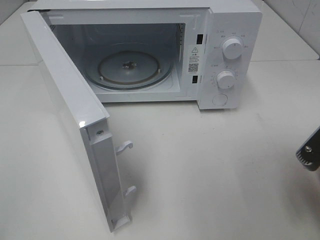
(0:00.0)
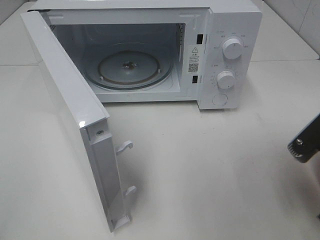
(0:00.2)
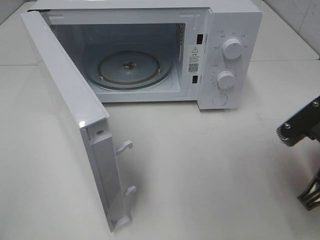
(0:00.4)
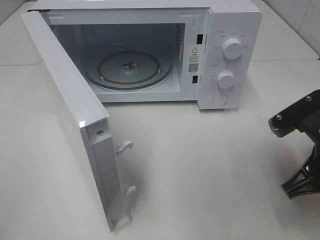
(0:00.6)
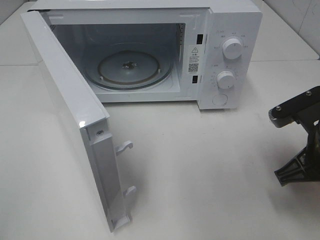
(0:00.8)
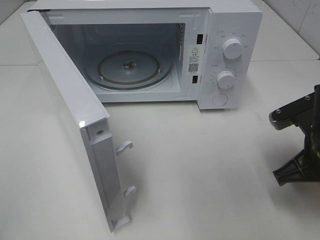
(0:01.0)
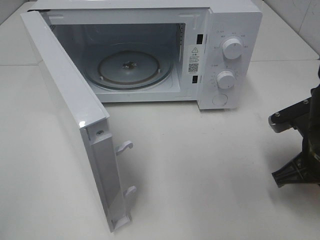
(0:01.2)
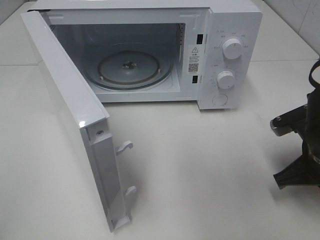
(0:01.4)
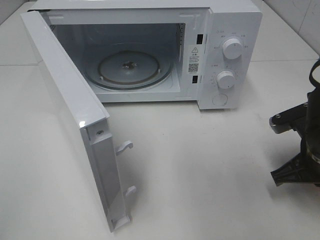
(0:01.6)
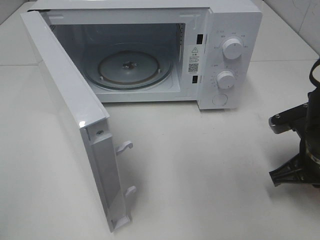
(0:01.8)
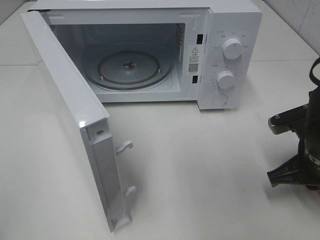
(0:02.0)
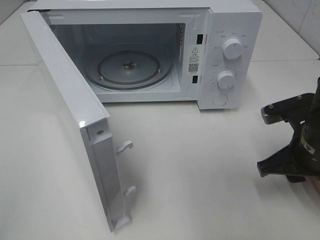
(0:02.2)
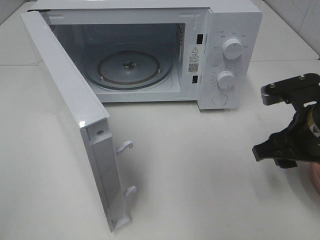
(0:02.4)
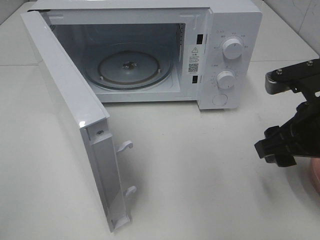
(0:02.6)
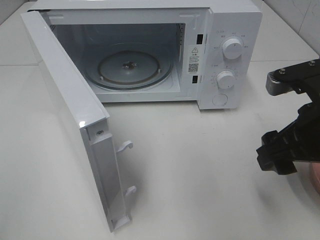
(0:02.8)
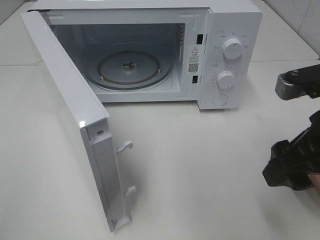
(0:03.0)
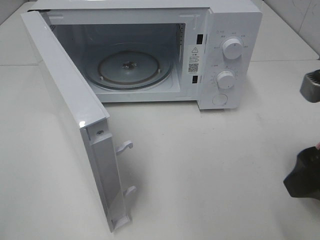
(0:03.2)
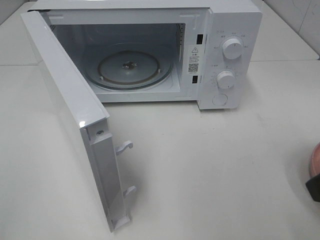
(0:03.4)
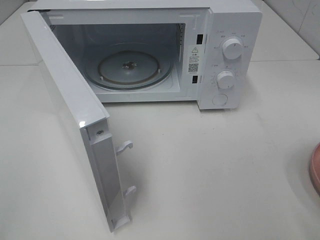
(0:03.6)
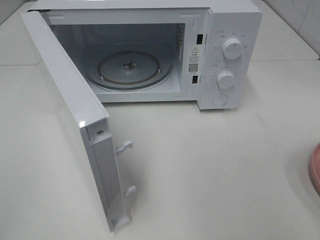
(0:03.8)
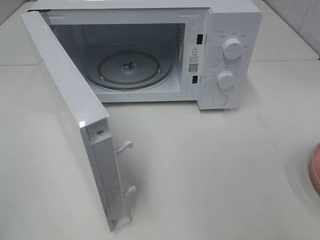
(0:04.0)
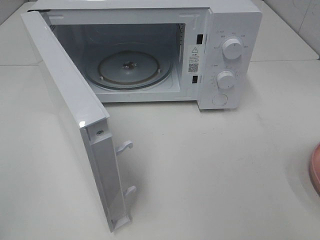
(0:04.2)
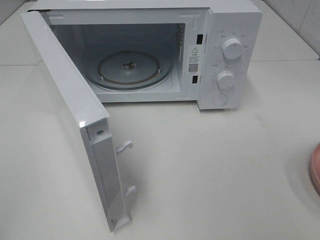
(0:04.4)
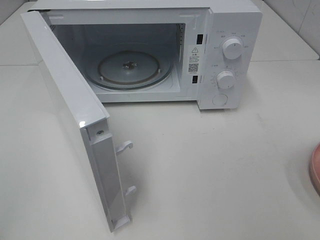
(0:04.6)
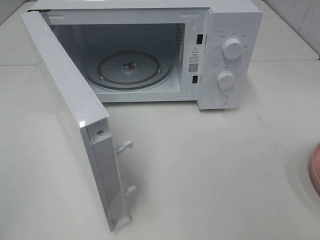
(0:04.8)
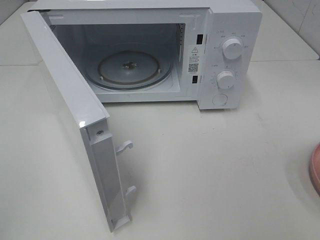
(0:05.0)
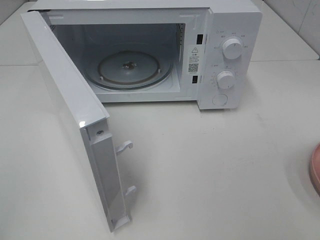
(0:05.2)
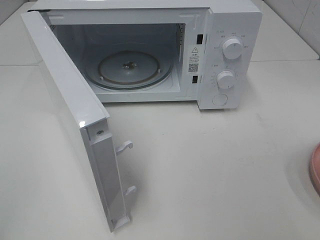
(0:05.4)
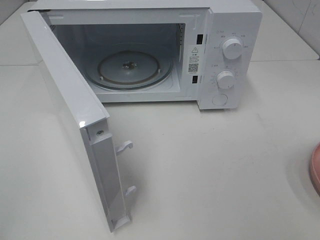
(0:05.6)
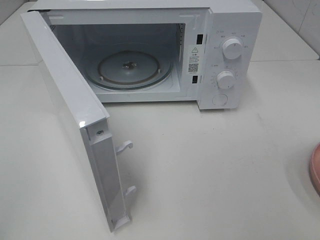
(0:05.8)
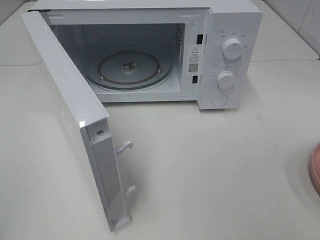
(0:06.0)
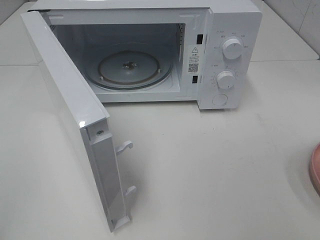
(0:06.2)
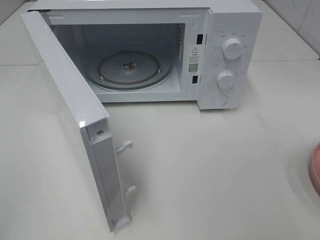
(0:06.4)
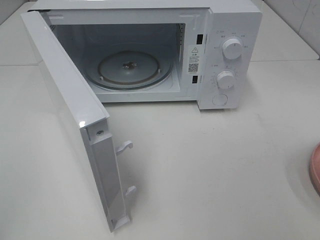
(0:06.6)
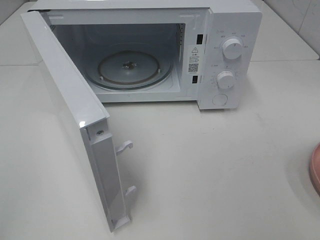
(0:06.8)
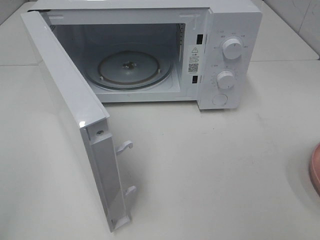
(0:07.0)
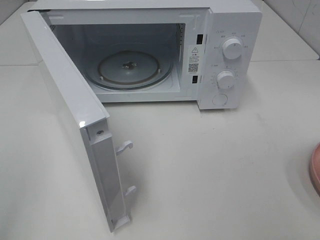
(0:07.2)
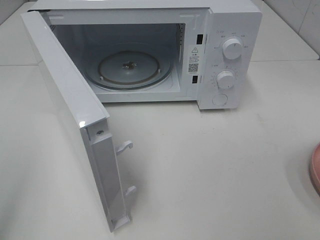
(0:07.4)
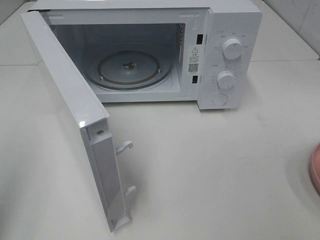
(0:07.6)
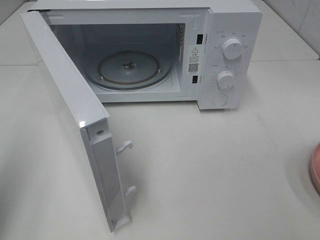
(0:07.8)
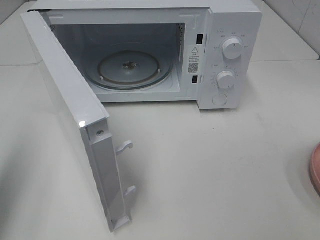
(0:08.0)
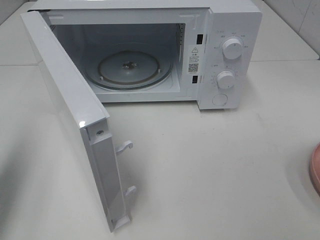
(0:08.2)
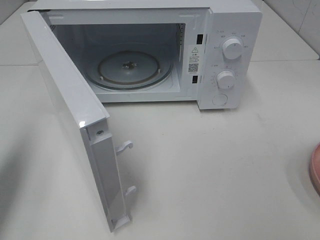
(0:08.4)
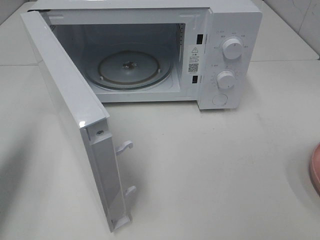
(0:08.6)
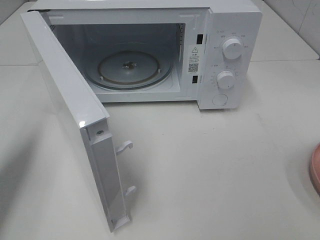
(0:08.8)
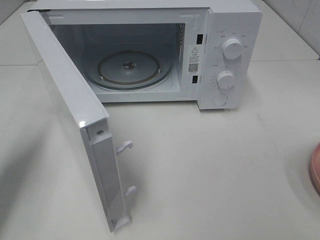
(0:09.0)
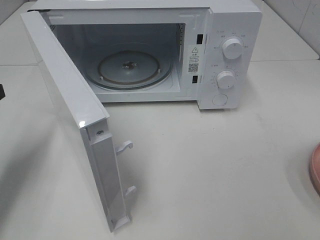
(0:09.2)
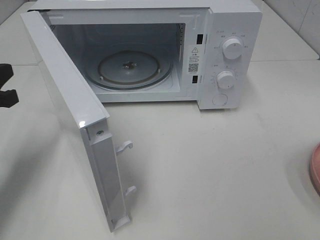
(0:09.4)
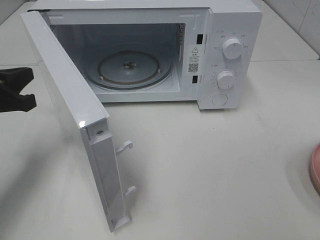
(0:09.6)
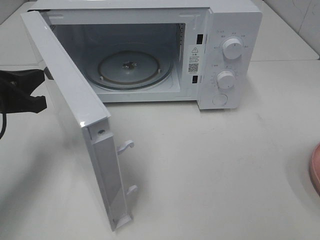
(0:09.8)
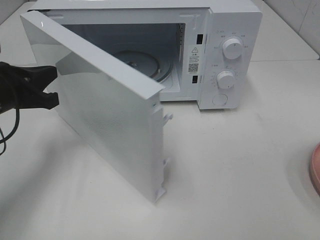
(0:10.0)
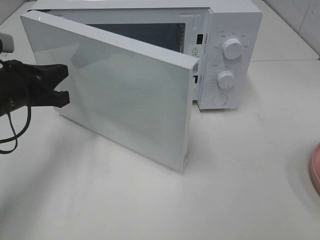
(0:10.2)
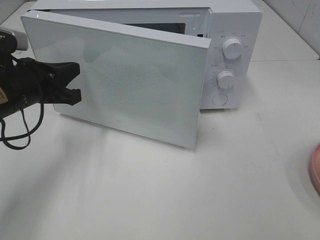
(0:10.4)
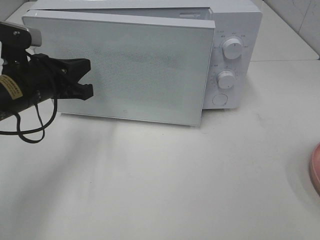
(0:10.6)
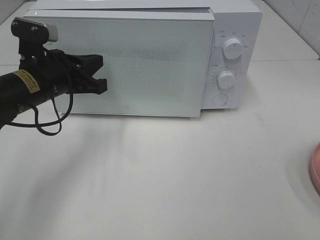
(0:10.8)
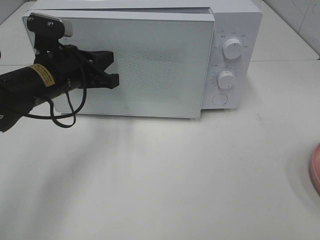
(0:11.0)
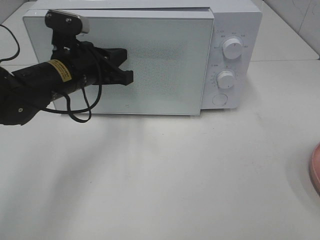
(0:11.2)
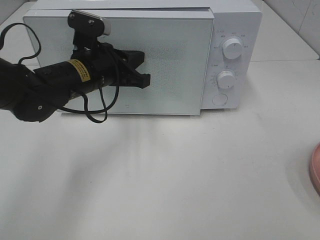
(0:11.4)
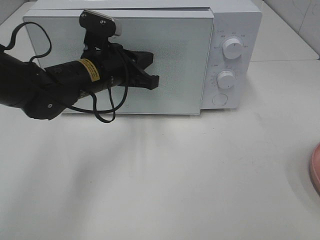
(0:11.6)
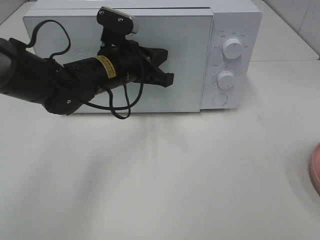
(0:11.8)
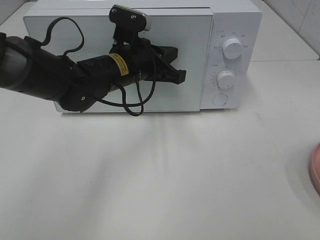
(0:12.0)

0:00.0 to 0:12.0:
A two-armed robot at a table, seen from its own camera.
Task of the whole recording: Heat the burger.
0:00.0 to 0:01.6: The right gripper is displaced forward and downward by some 10 cm.
0:01.6 to 0:03.0: The right gripper goes approximately 10 cm upward and backward, and opens.
0:03.0 to 0:04.4: The right gripper moves backward and to the right, roughly 20 cm.
0:04.4 to 0:06.0: Neither gripper changes place.
0:07.6 to 0:09.0: The left gripper shifts some 20 cm forward and downward, and closes.
0:09.0 to 0:10.4: The left gripper moves to the right, forward and downward, some 15 cm.
0:10.4 to 0:12.0: The left gripper heads to the right and forward, covering roughly 15 cm.

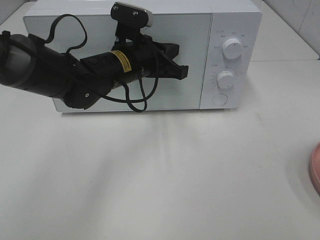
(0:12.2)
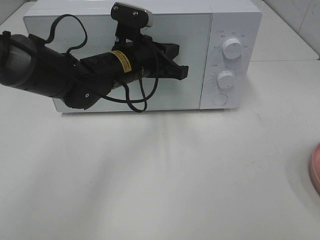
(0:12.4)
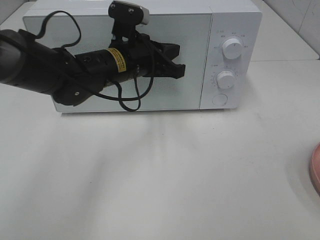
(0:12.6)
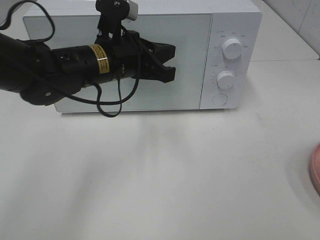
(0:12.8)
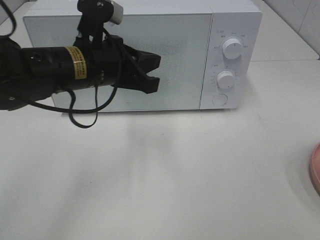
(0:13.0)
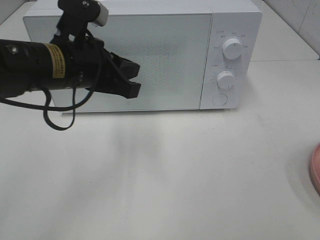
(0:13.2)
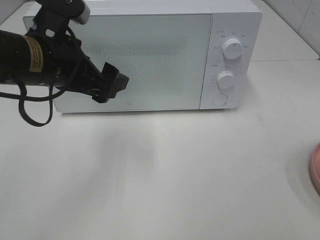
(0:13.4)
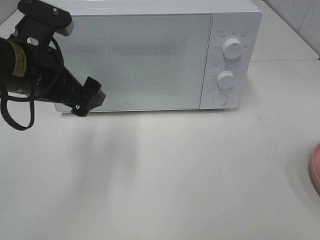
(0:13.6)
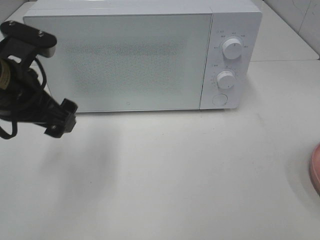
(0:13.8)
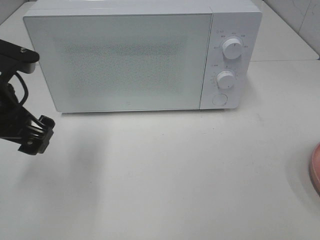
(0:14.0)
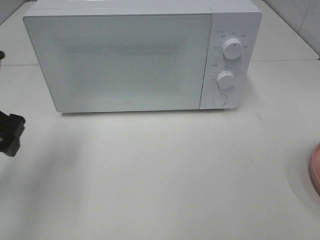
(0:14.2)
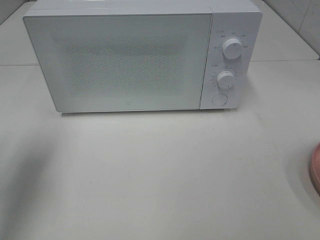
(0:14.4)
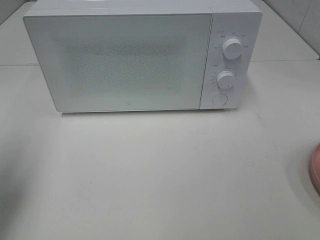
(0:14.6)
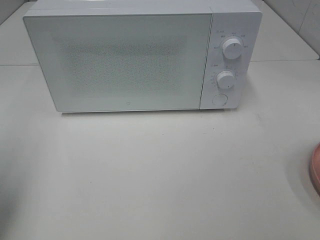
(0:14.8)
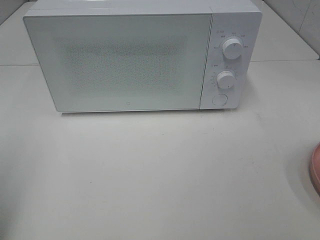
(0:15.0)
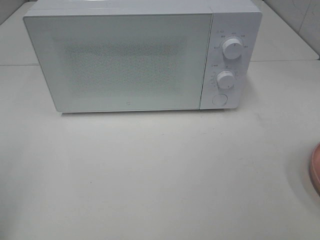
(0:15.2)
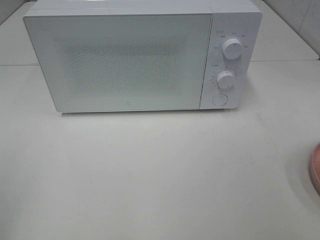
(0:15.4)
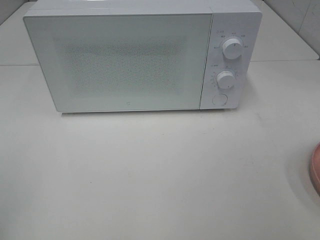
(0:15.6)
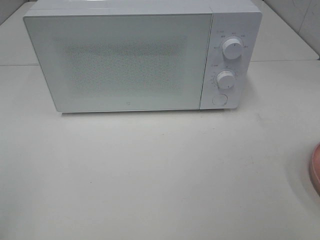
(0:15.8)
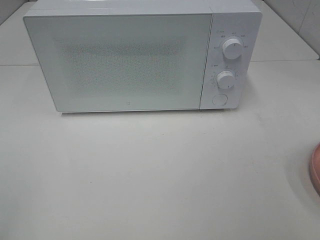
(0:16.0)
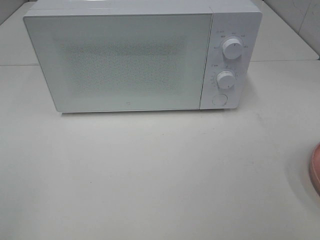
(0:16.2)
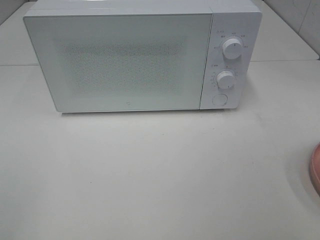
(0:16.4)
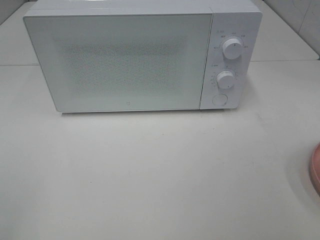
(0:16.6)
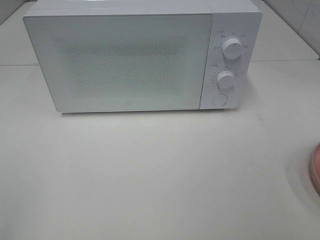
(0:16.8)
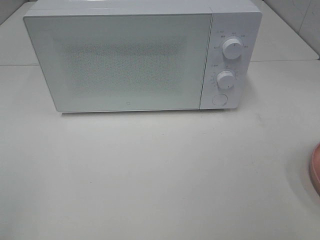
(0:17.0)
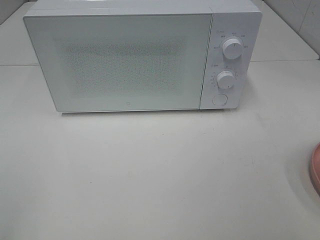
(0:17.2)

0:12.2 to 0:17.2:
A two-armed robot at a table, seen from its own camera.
Task of the whole recording: Heat the burger.
0:12.2 to 0:13.8: The left gripper is displaced to the left and backward by some 20 cm, and opens up.
0:13.8 to 0:15.6: The left gripper is displaced backward and to the left by about 25 cm.

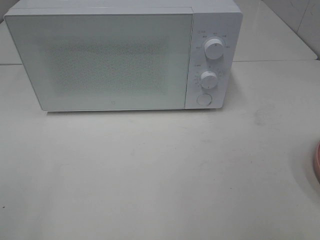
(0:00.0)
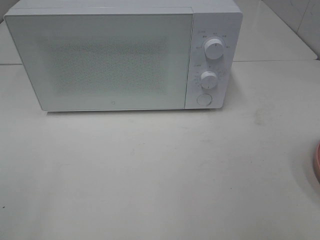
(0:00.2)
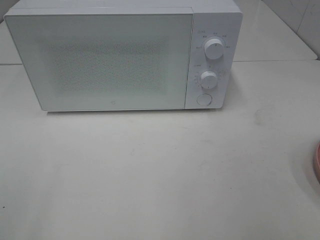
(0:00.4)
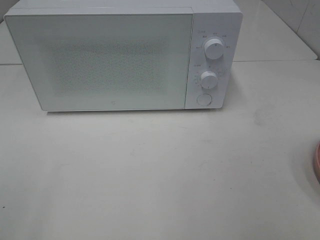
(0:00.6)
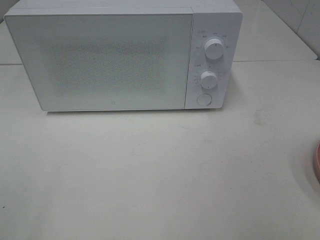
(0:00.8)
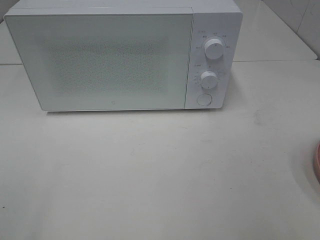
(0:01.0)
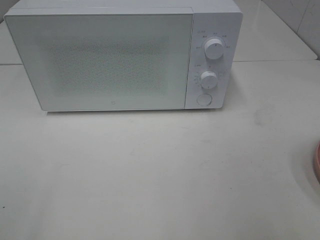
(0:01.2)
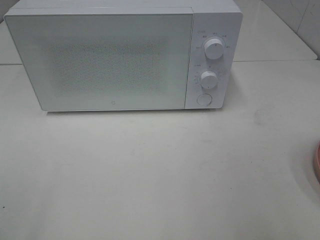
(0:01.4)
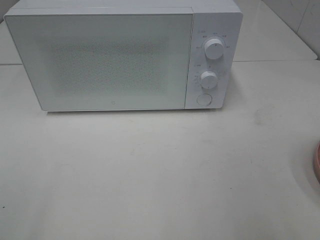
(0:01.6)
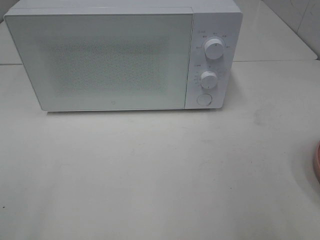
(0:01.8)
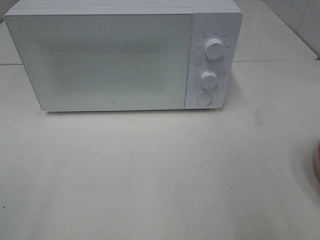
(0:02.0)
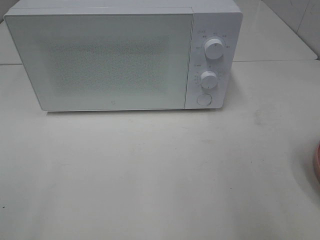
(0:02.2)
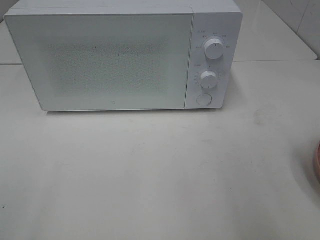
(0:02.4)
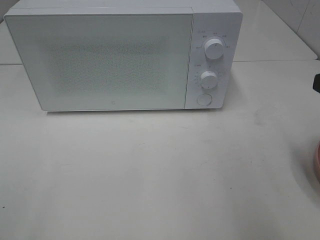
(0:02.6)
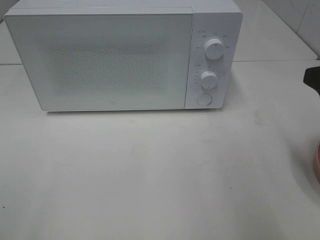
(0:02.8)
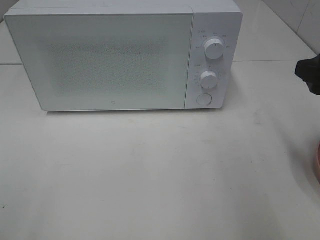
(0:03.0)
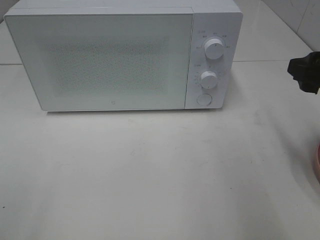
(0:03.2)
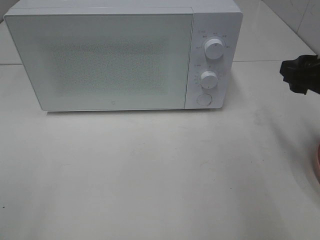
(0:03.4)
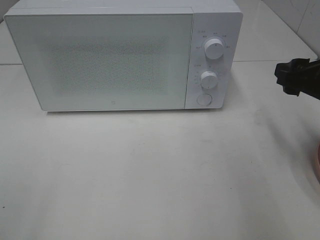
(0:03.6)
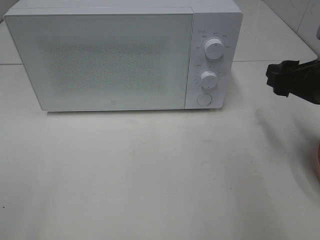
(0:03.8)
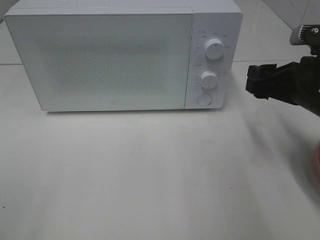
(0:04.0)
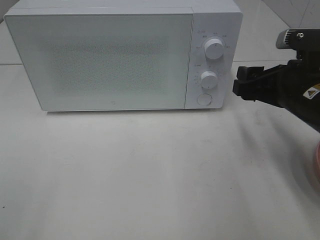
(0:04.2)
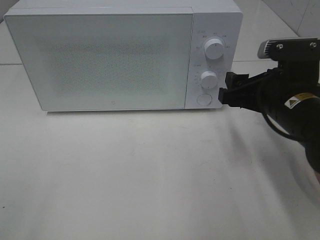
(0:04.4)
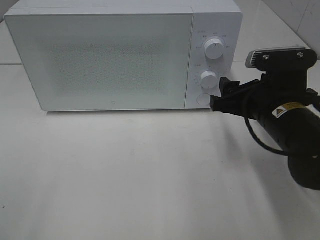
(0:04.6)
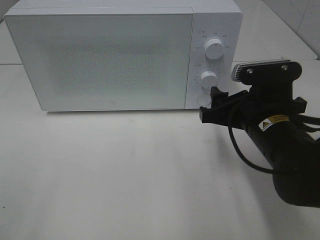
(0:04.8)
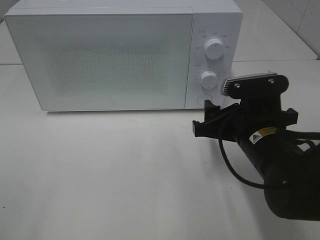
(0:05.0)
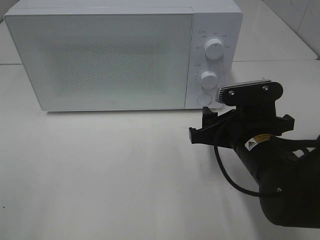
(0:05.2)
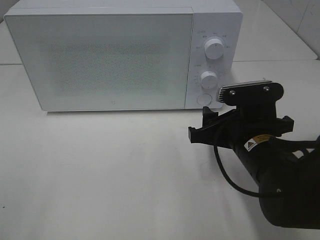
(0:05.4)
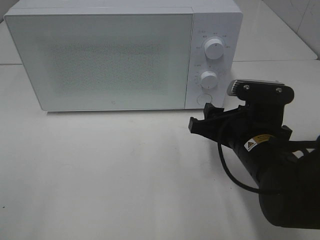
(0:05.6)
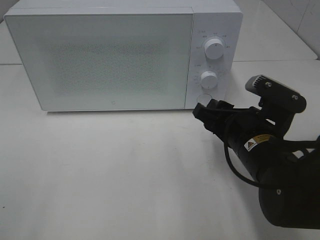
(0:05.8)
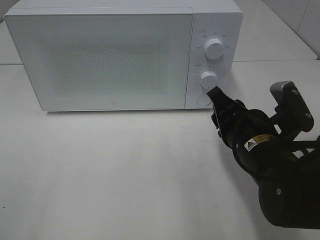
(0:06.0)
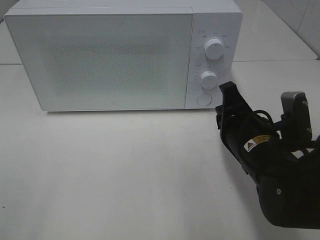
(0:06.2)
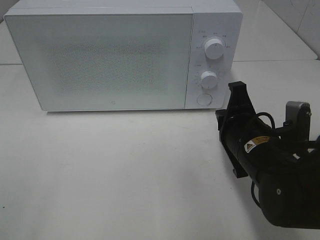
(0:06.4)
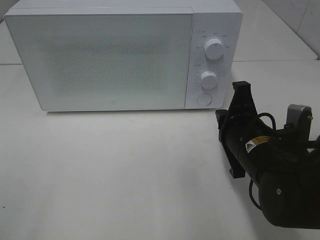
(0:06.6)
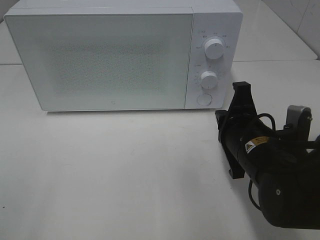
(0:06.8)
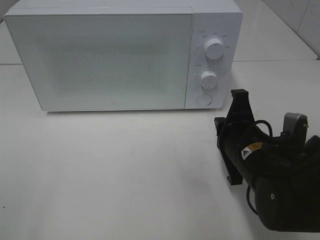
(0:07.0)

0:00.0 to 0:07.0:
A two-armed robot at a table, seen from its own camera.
Task of the whole recording: Heat the burger.
0:01.4 to 0:02.8: The right gripper travels forward by approximately 15 cm.
0:02.8 to 0:04.2: The right gripper is displaced forward, downward and to the left by about 10 cm.
0:04.2 to 0:05.6: The right gripper heads to the left and downward, covering some 10 cm.
0:05.6 to 0:07.0: The right gripper closes.
